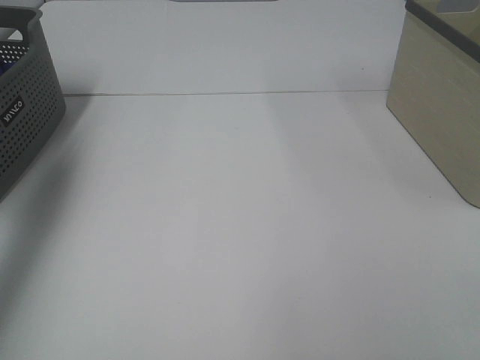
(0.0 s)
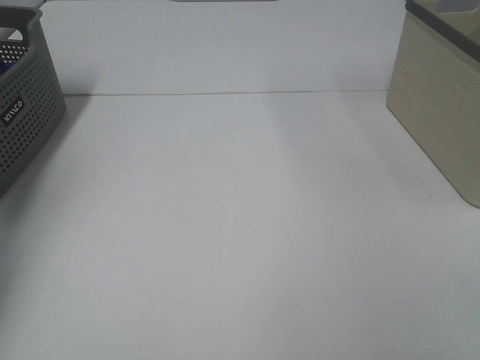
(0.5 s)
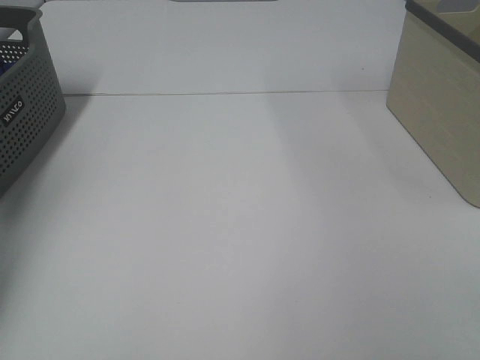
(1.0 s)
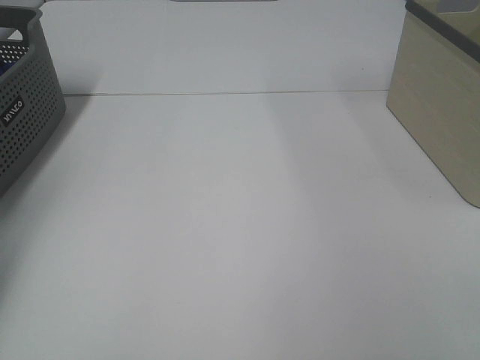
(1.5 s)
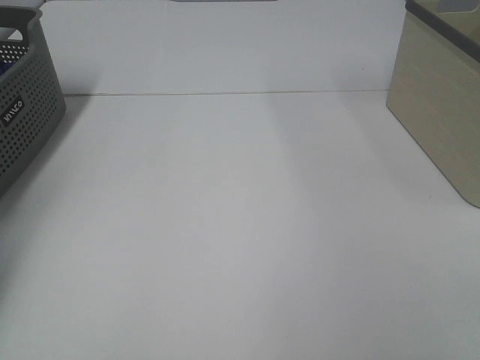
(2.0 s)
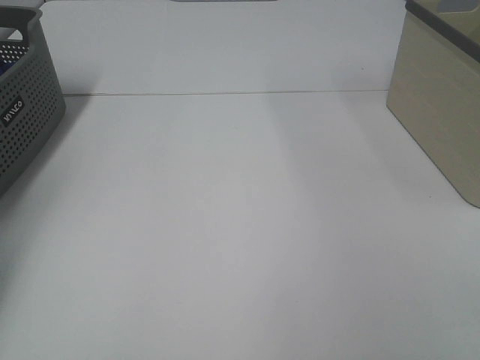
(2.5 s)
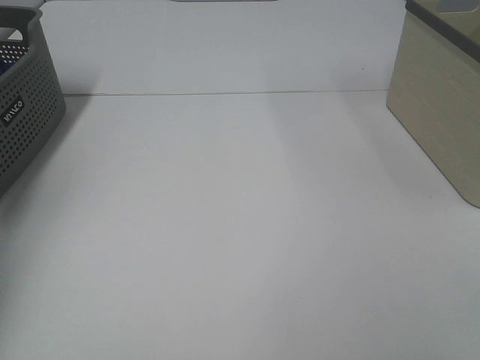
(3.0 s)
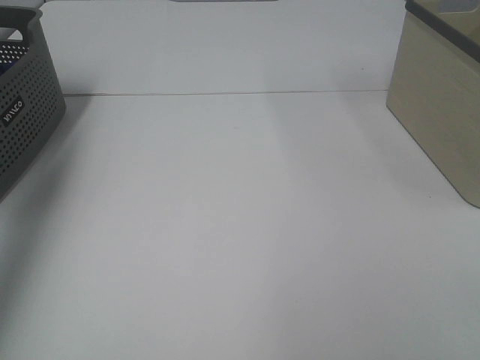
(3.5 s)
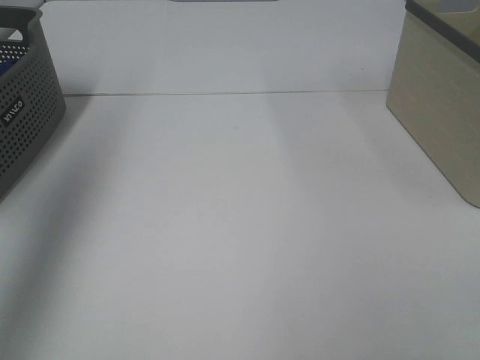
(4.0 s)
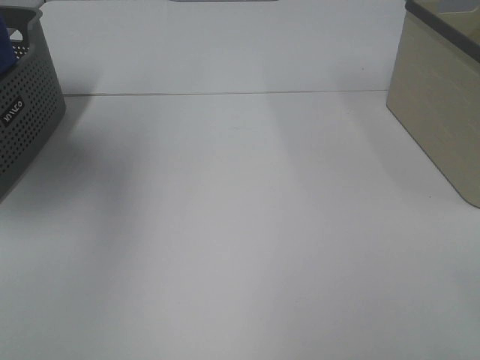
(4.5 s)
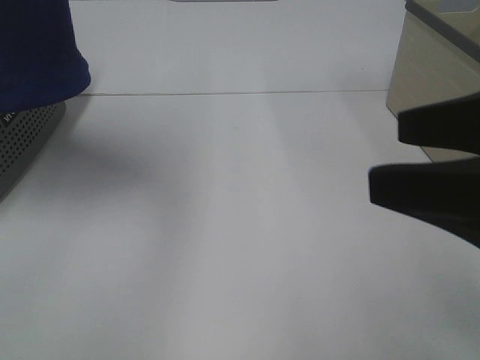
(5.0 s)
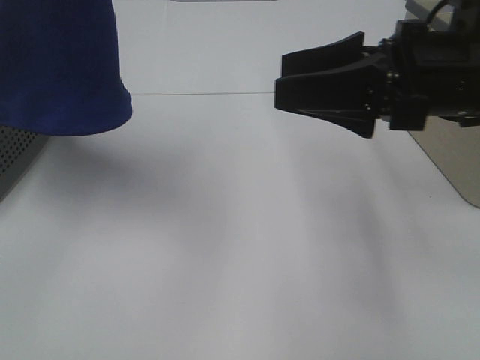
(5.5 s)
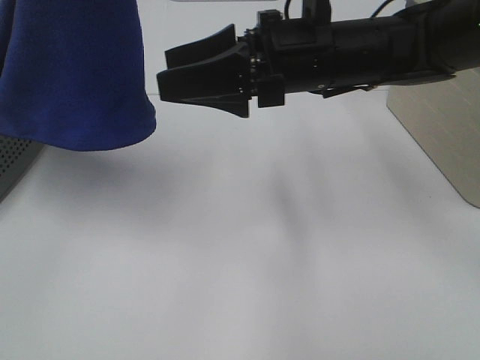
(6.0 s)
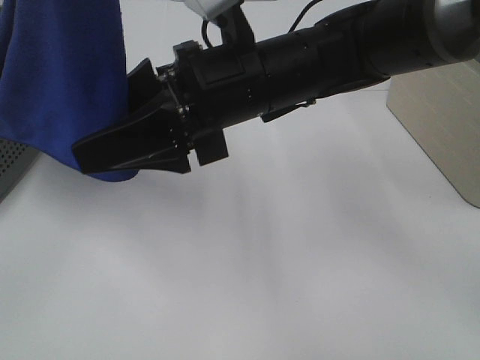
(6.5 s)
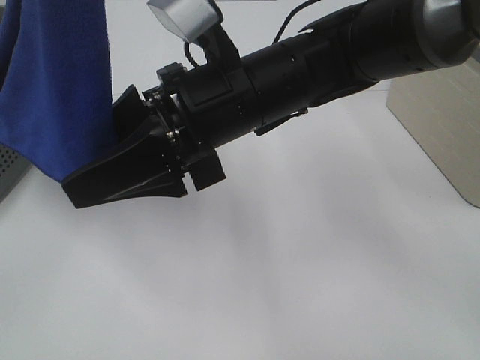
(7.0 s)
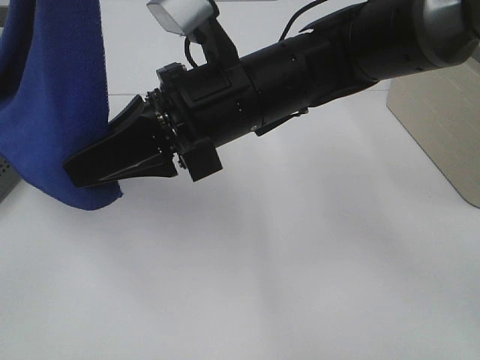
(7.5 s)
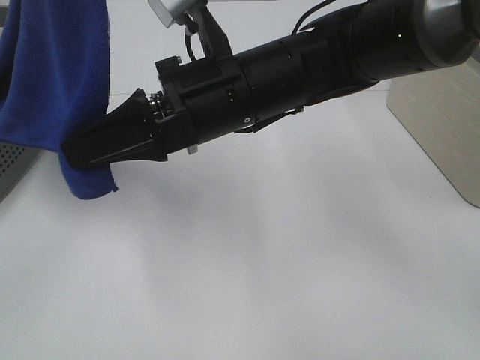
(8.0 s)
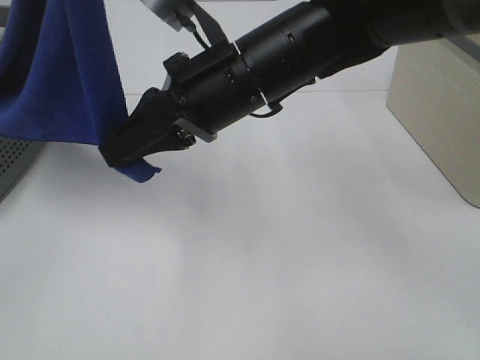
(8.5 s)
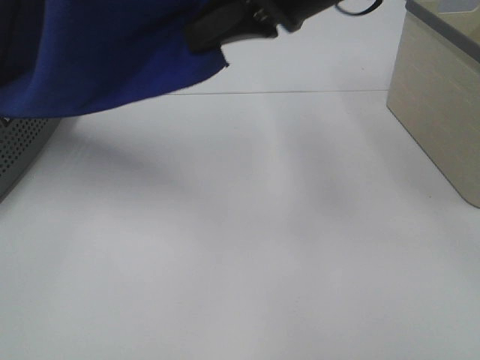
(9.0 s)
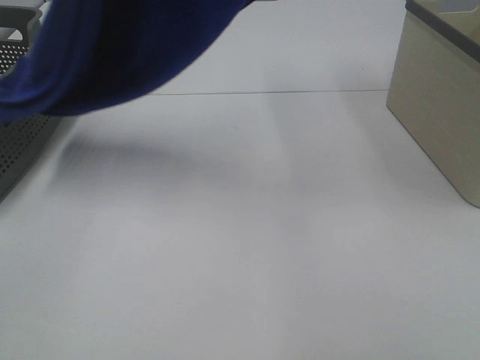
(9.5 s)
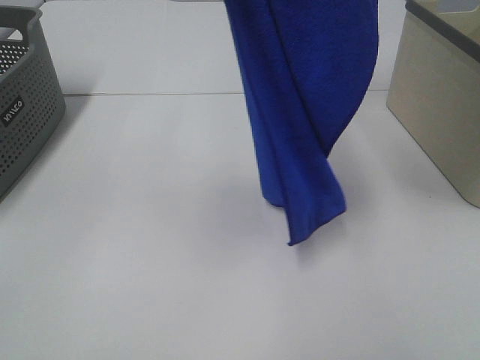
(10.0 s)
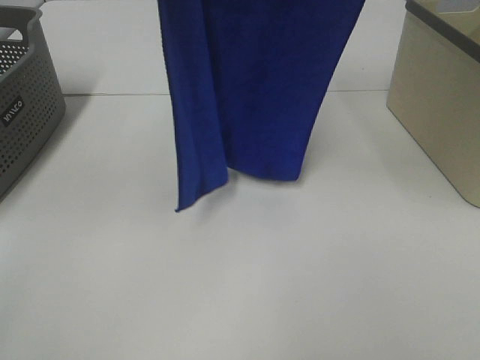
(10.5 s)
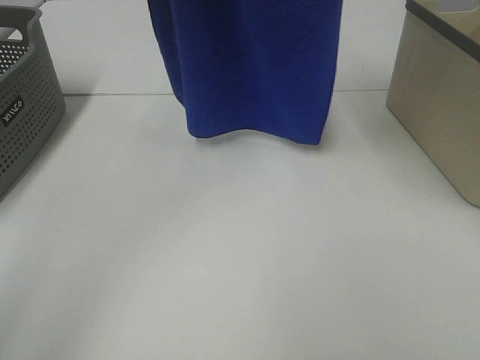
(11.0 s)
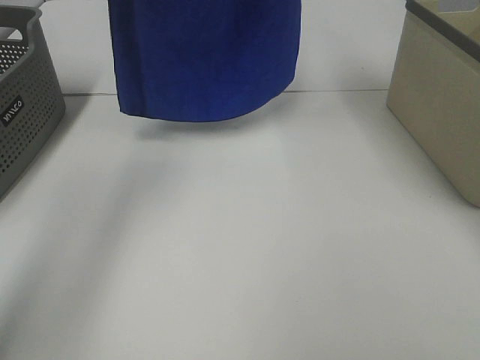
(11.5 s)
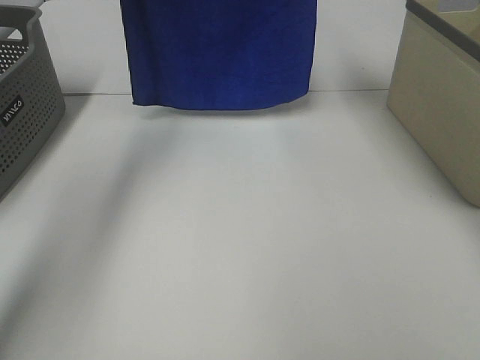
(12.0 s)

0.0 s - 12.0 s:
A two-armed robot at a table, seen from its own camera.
Task of the whole recording: Remove the towel and place it.
Step, 3.5 s - 8.0 s: Right hand: grab a corner of the blue towel and straighten it.
0.0 s - 2.0 s: The left gripper travels downward, forward and to the left by about 20 cm, and closes its fingers.
2.0 s - 4.0 s: The left gripper heads upward and backward, covering roughly 35 cm.
4.0 s - 6.0 s: The left gripper goes about 20 cm to the right. The right gripper shifts approximately 40 cm forward and to the left.
6.0 s - 8.0 s: The right gripper heads to the left, covering roughly 5 cm, and closes its fingers.
8.0 s - 10.0 s: The left gripper is displaced forward by roughly 5 cm, while the right gripper heads upward and to the right, covering about 30 cm.
10.0 s - 12.0 s: The grippers both shift forward by approximately 20 cm.

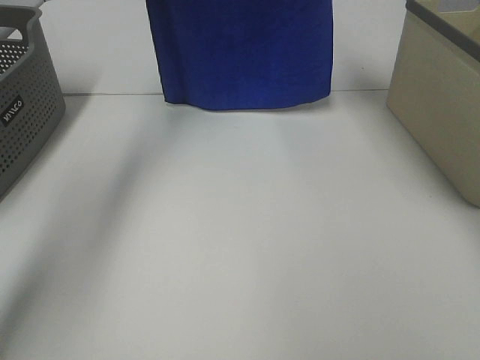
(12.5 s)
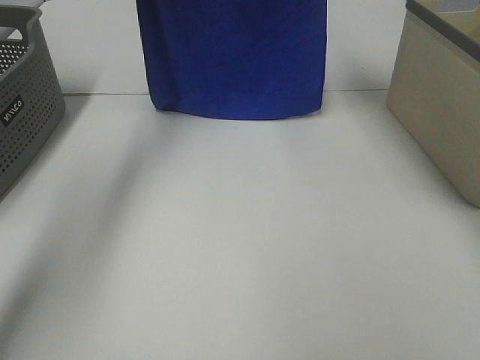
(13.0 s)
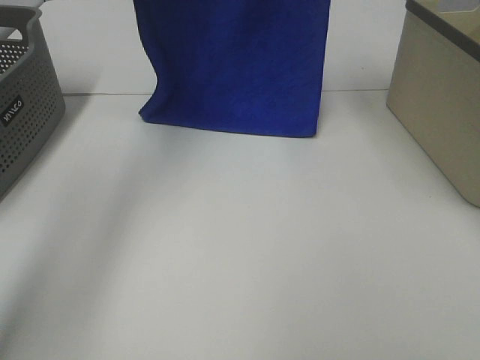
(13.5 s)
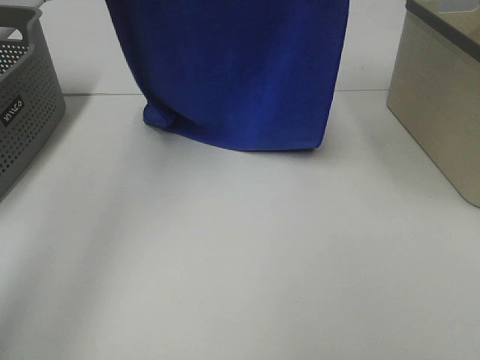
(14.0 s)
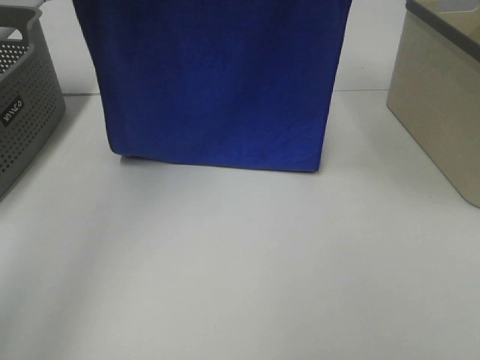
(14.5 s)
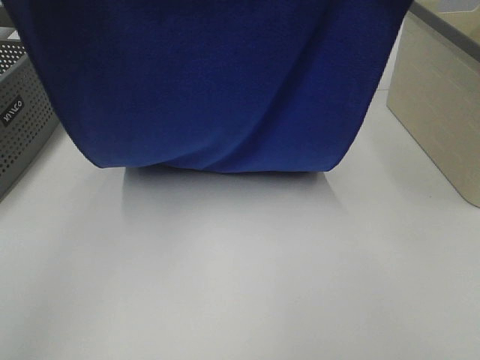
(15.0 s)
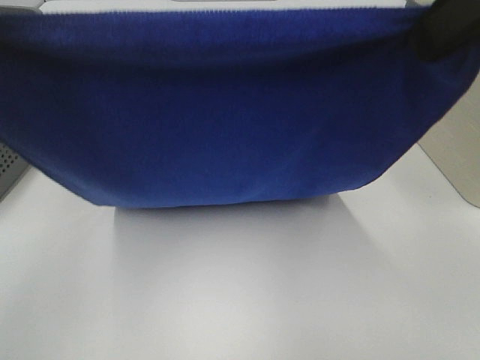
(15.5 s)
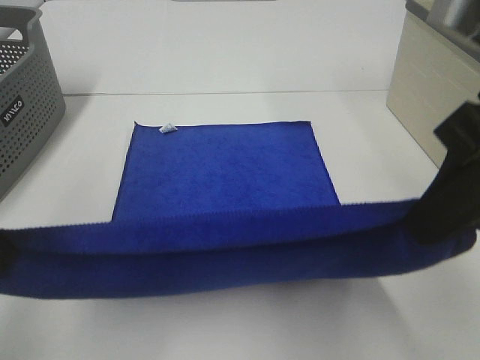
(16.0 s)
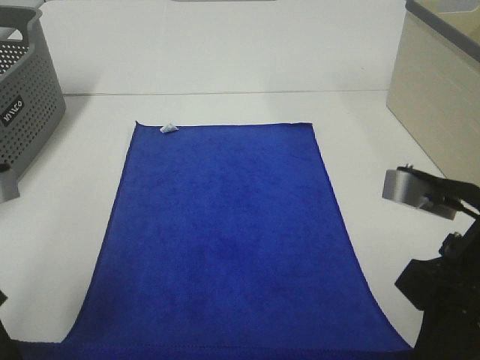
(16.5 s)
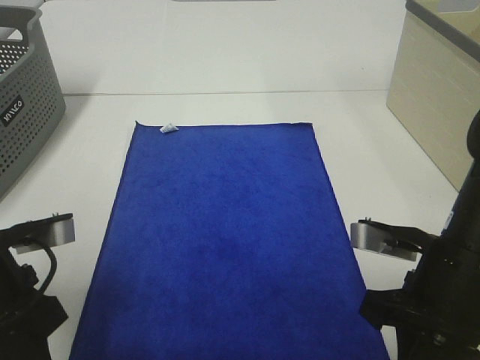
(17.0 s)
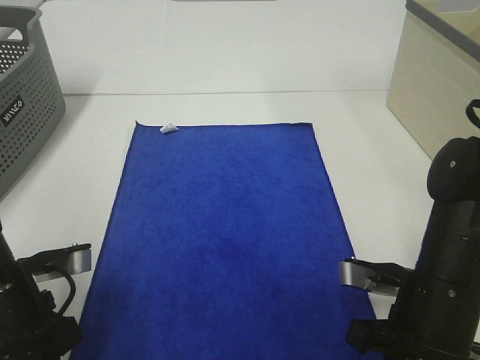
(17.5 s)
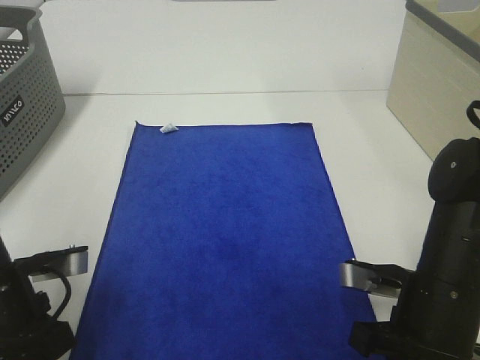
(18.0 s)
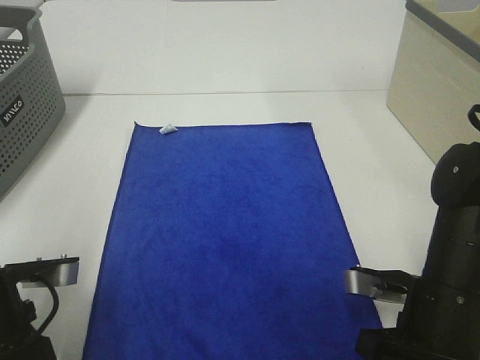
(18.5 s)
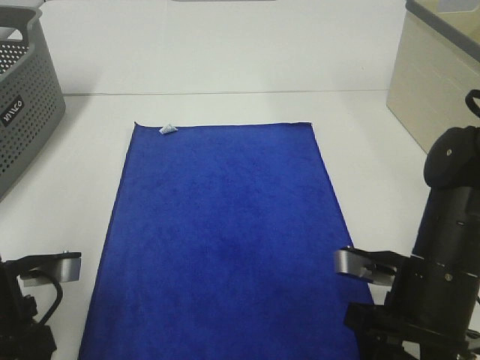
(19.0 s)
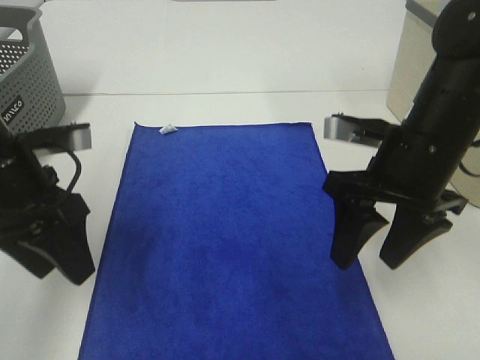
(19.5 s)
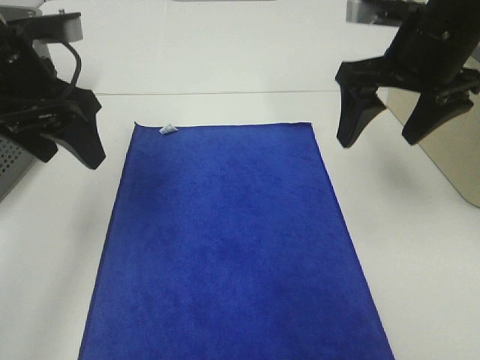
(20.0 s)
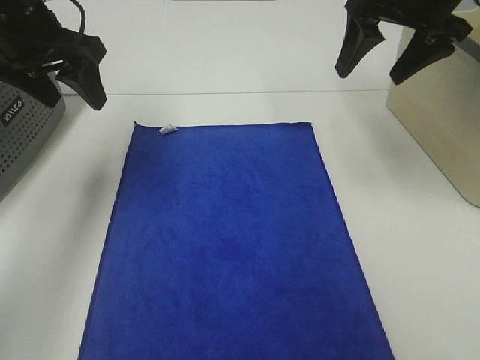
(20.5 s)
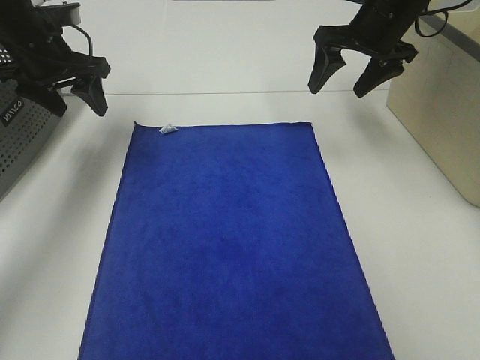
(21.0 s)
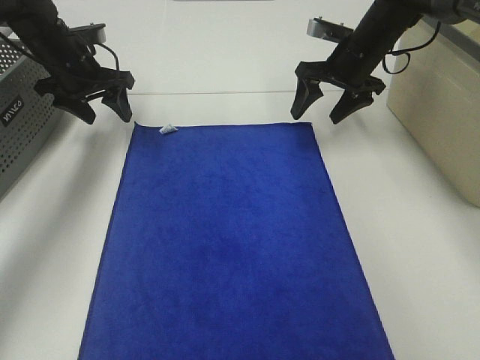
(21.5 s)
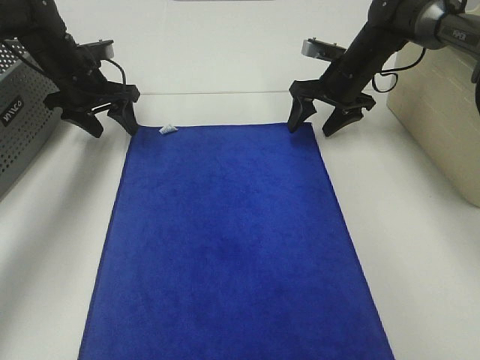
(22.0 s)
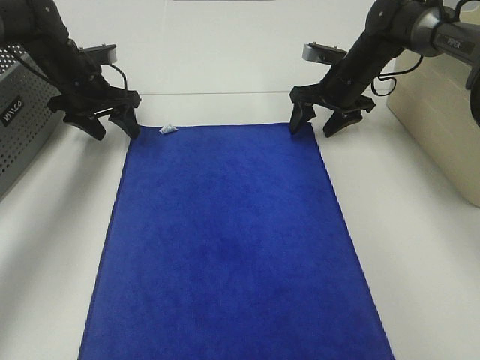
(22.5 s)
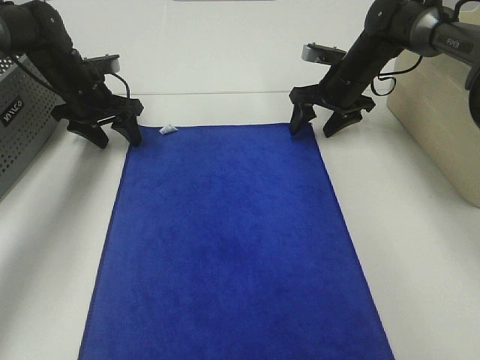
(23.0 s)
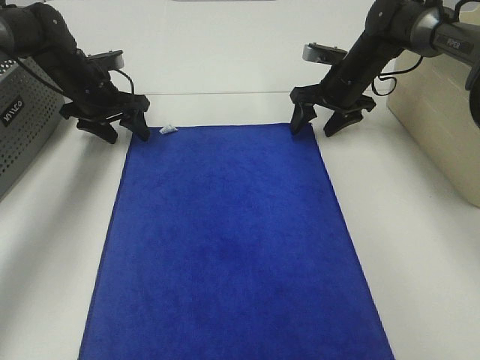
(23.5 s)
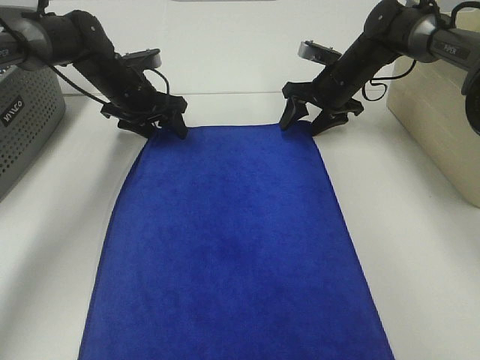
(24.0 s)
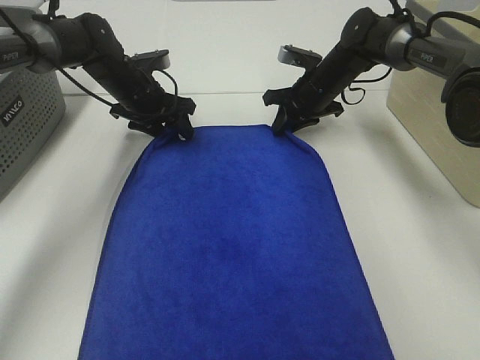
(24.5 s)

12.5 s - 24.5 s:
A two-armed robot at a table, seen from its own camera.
Task of the whole recording: Remove the towel and place it.
Step, 14.0 s - 22.5 s: Left hand:adjust the blue towel.
Step, 14.0 s - 22.5 s: Right hand:adjust the blue towel.
12.5 s - 14.5 s: Both grippers move backward, about 15 cm.
14.5 s - 16.5 s: Both grippers travel together downward and backward, roughly 30 cm.
16.5 s - 18.5 s: Both grippers travel together downward, approximately 10 cm. The right gripper opens.
18.5 s - 20.5 s: The two grippers go some 30 cm forward and upward. The right gripper opens its fingers, while the left gripper opens.
20.5 s - 22.5 s: The grippers both shift downward and forward by some 20 cm.
22.5 s - 24.5 s: The left gripper shifts about 10 cm to the right. Meanwhile the right gripper closes up.

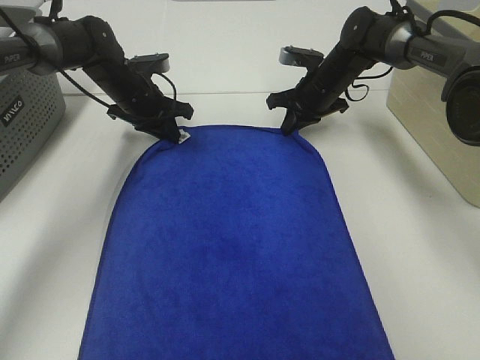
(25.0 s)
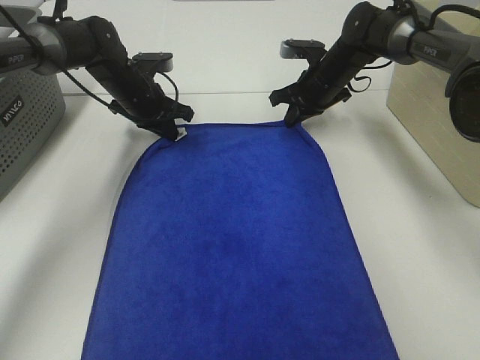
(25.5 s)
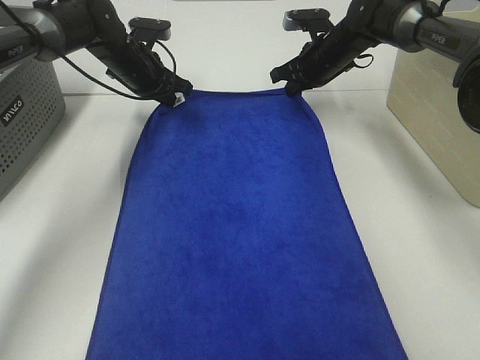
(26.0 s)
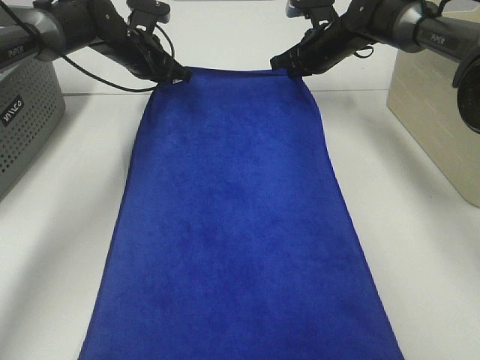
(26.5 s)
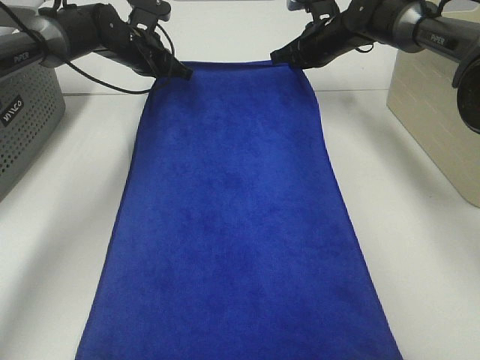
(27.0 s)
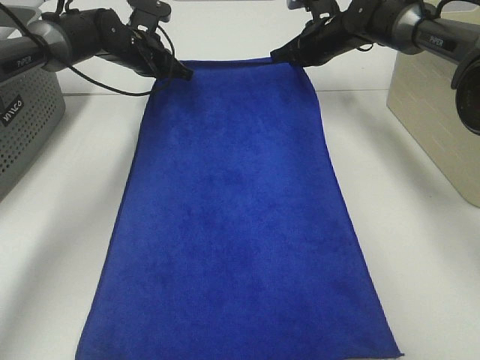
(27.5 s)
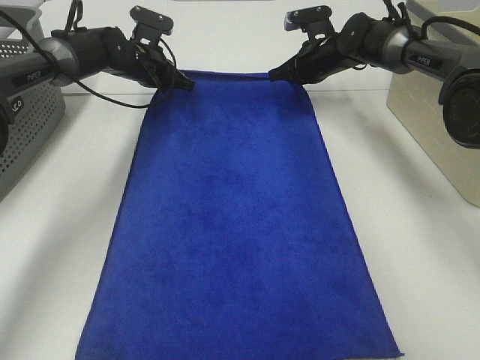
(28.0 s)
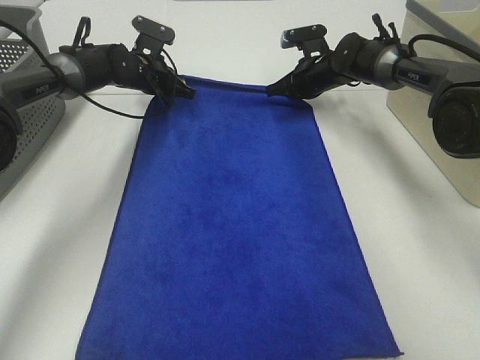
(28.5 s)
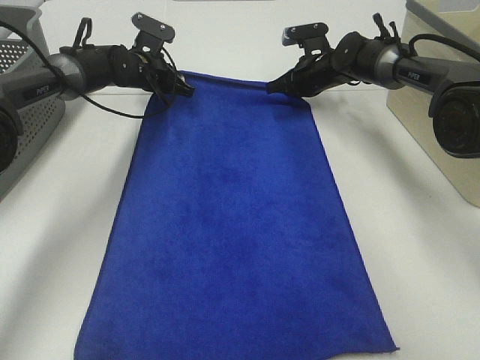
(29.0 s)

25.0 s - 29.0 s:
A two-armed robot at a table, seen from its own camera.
Task of the whole recording: Remove the towel and place it.
25.0 s - 27.0 s: The left gripper heads forward, covering some 5 cm. Meanwhile the right gripper shifts about 5 cm upward.
27.0 s - 29.0 s: The right gripper goes approximately 5 cm downward; the left gripper shifts by some 5 cm.
